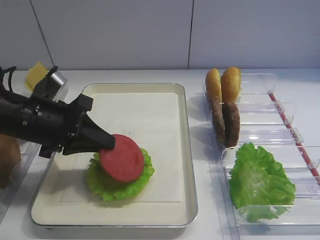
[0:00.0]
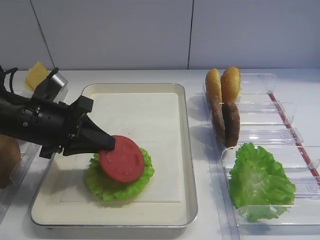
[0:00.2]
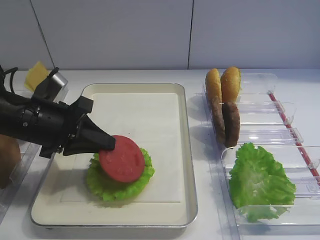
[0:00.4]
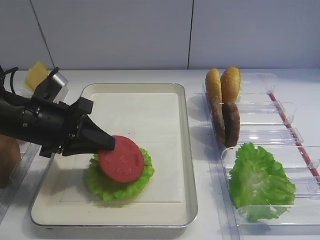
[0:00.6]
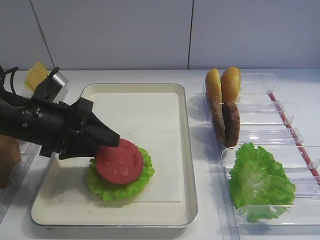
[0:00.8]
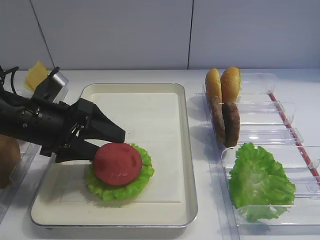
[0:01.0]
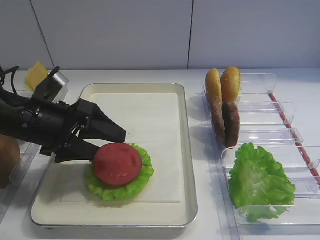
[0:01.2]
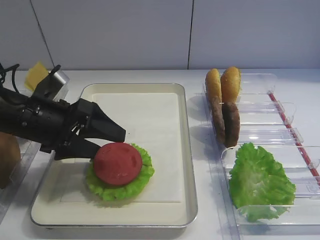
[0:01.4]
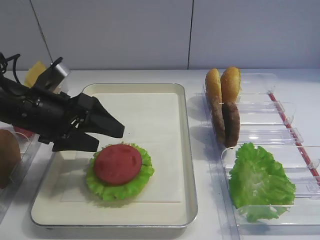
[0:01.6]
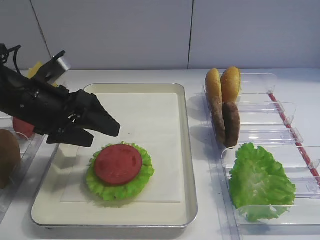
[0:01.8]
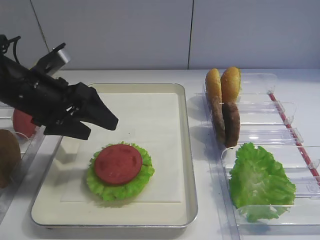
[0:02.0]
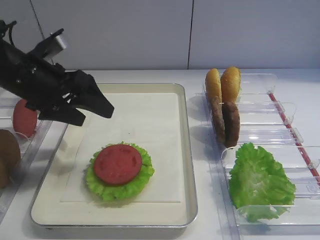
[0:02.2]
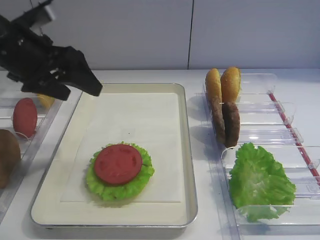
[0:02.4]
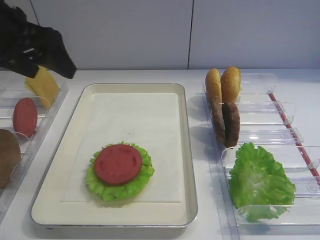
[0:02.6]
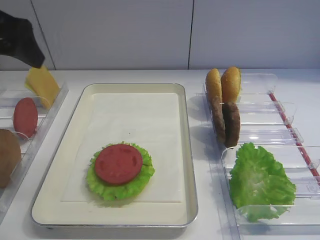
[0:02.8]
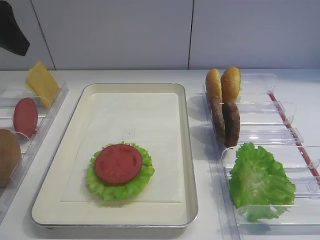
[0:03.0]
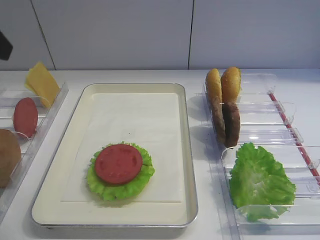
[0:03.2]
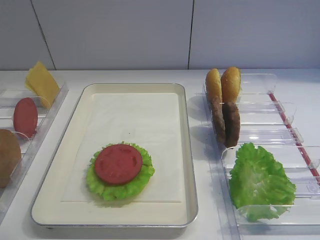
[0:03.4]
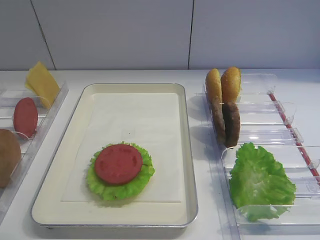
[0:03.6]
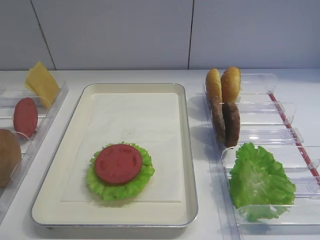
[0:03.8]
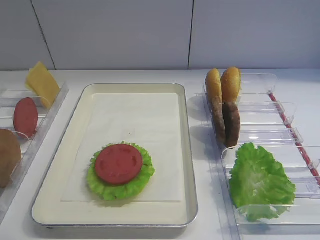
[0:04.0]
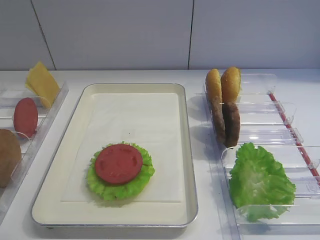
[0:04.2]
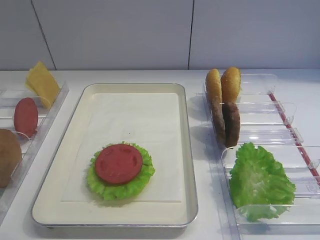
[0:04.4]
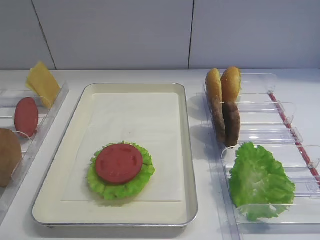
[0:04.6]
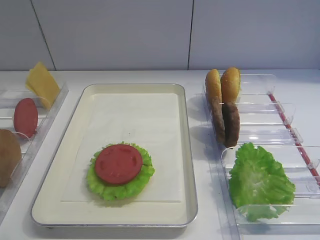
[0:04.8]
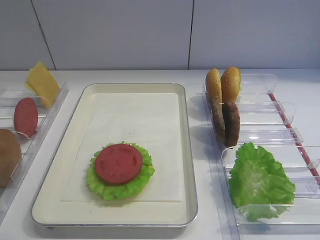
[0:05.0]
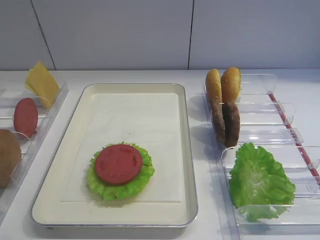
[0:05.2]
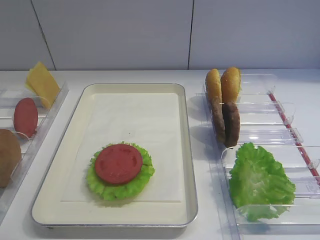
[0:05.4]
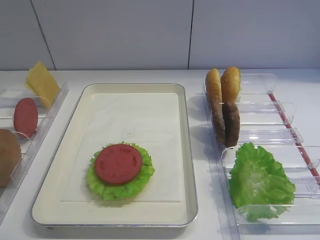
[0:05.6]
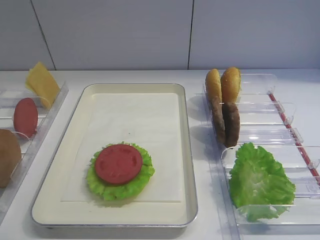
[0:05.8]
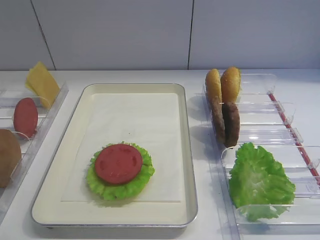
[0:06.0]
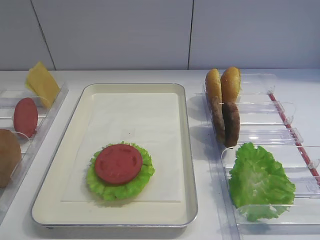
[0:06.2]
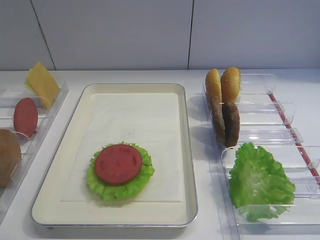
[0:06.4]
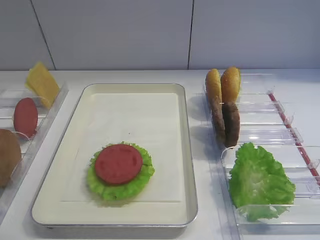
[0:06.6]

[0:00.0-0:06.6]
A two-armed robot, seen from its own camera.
0:00.0 to 0:01.6: The left gripper opens its fingers.
0:01.6 to 0:03.2: The left gripper travels upward by some 20 cm.
0:05.0 to 0:06.6: Neither gripper changes place.

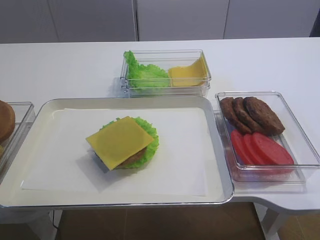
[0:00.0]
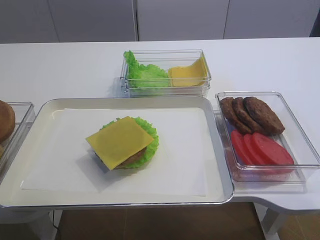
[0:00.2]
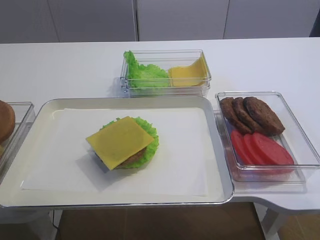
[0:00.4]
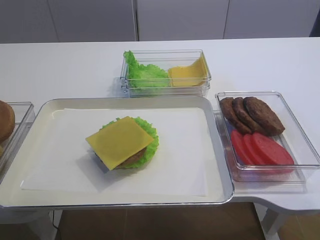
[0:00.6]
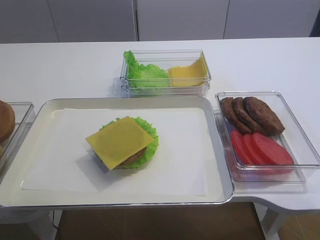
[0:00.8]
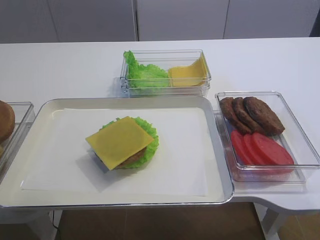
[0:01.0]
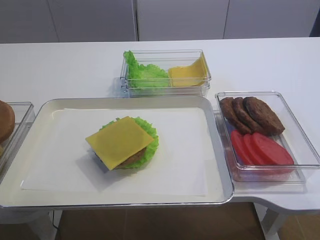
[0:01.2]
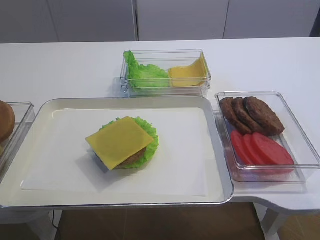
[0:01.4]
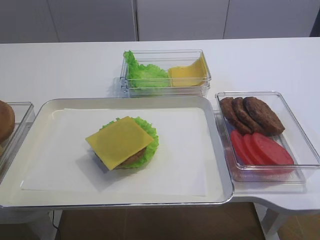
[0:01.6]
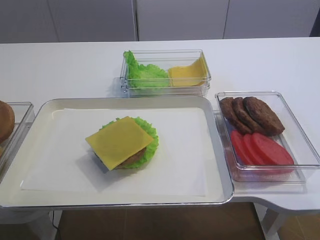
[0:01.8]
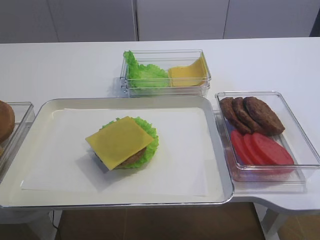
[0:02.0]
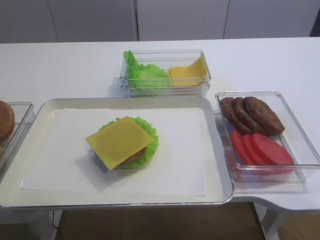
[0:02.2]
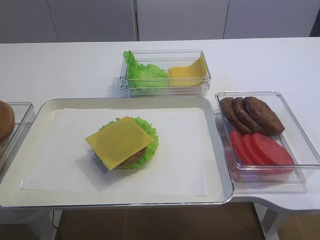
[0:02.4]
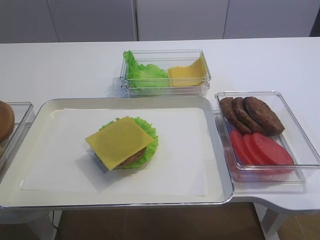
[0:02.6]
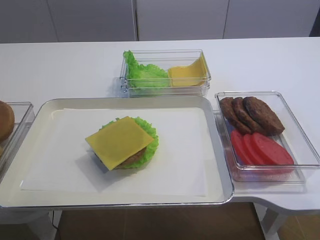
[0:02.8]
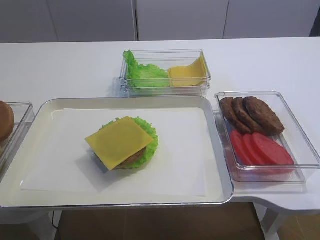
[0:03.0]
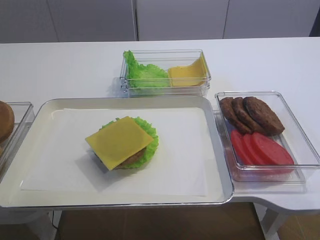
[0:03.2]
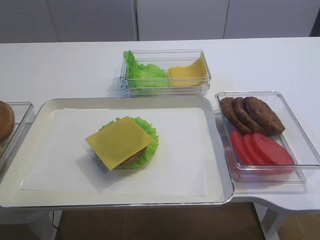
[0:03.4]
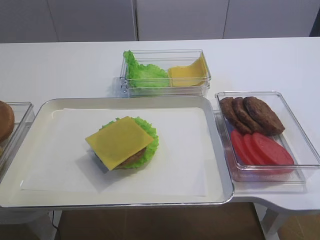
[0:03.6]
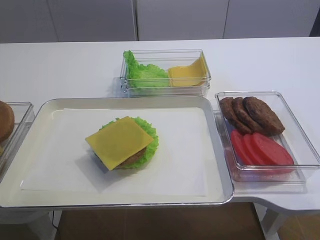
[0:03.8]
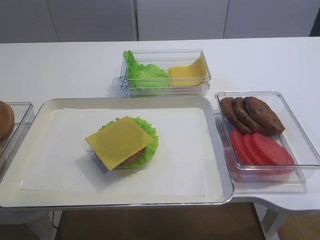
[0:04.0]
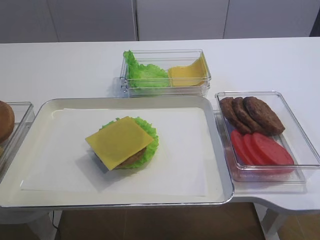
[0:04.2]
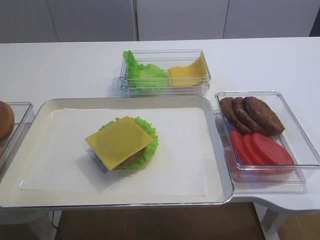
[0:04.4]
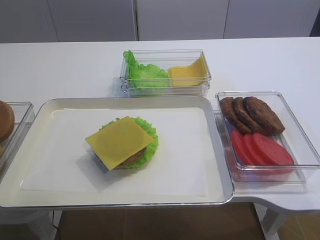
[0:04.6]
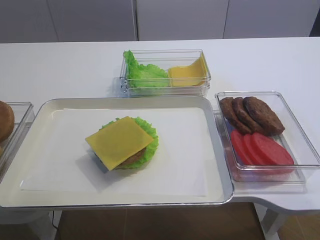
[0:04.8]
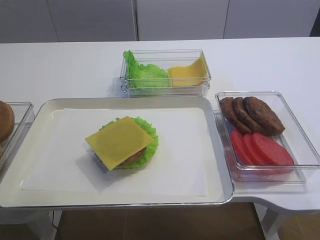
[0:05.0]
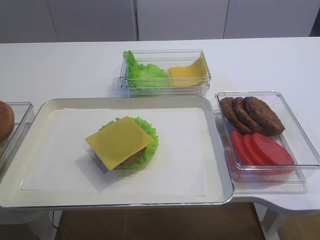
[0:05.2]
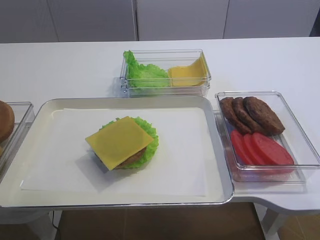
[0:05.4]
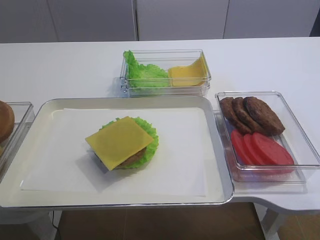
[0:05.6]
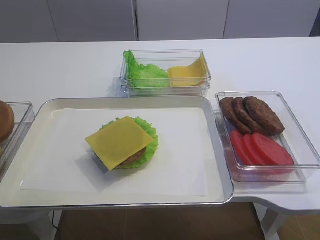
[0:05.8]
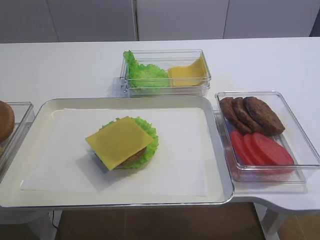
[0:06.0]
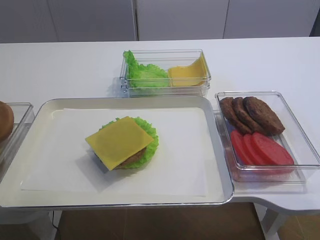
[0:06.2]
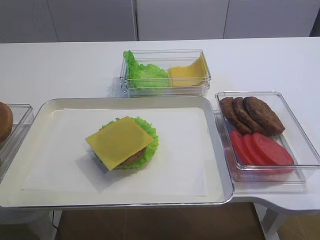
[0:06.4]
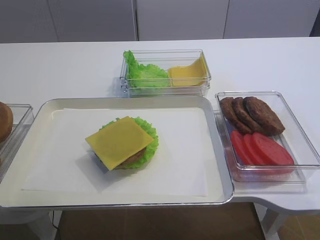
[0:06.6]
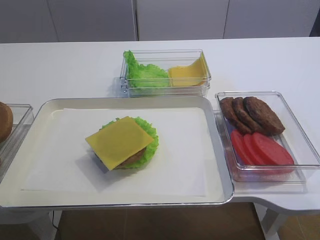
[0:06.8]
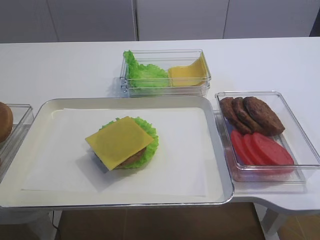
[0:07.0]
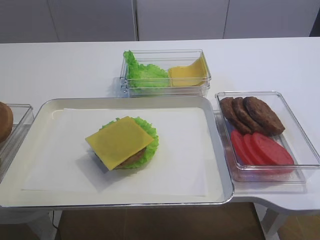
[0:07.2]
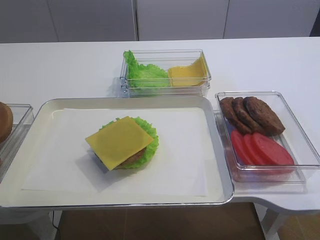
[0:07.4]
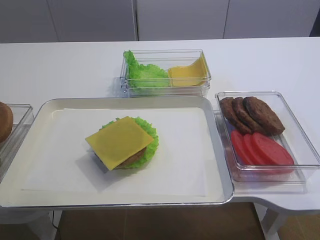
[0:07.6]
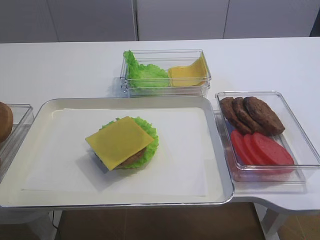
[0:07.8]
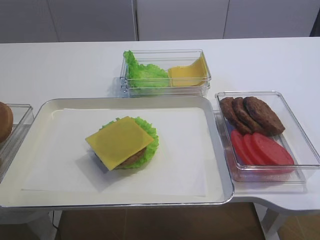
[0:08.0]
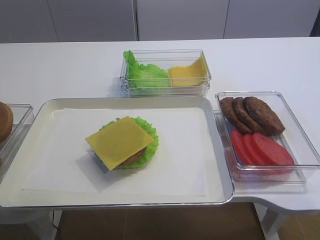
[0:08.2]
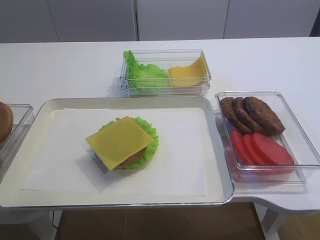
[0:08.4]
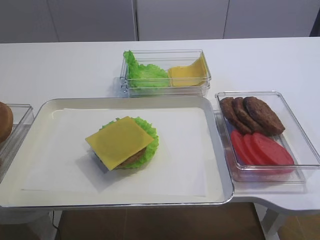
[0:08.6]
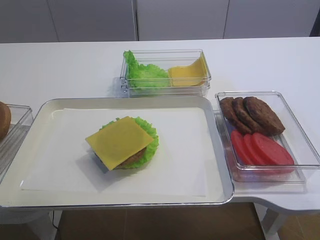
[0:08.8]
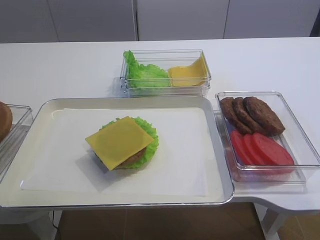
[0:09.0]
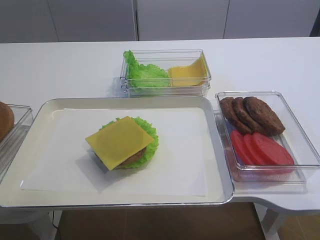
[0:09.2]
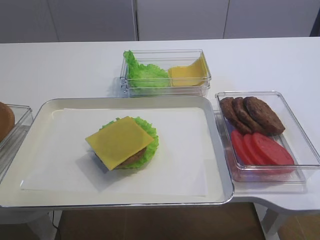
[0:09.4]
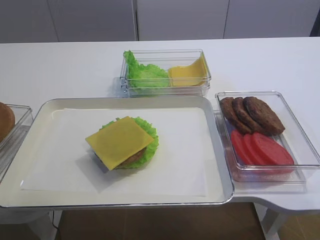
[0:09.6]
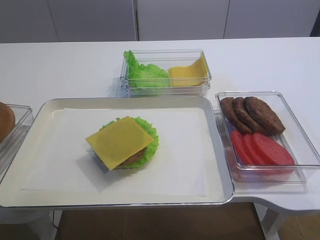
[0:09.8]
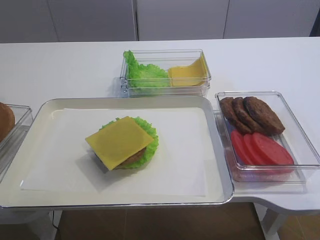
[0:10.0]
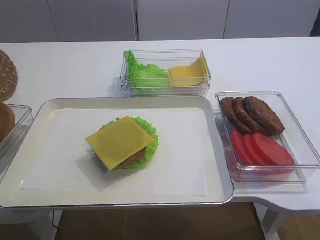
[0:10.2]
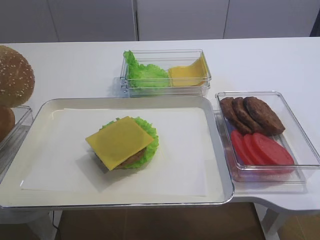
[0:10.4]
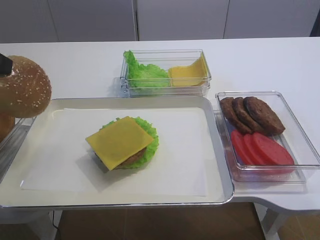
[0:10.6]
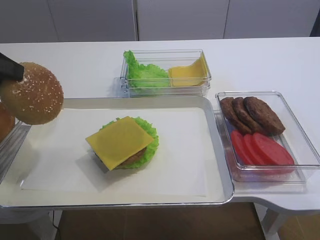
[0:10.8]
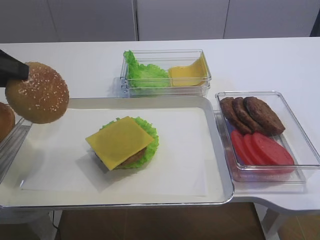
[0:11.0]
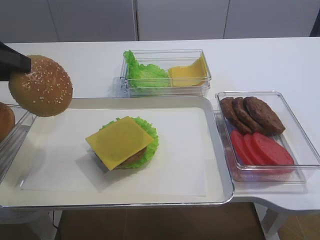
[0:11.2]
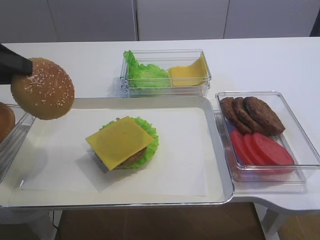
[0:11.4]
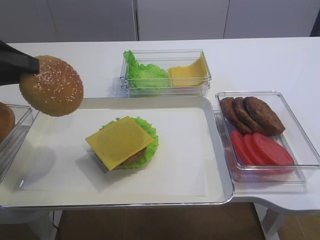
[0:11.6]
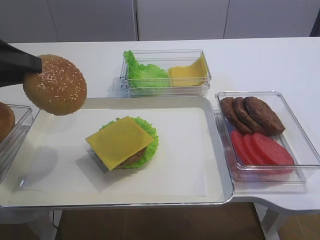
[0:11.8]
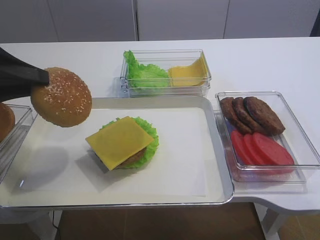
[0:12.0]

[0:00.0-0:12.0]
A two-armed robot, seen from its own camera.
0:09.0 to 0:10.4: The left gripper shifts roughly 10 cm to the right and upward.
0:10.4 to 0:12.0: The left gripper travels downward and to the right by some 5 cm.

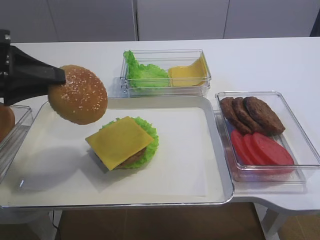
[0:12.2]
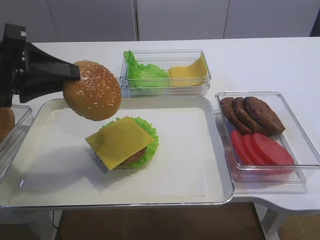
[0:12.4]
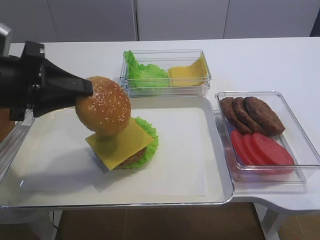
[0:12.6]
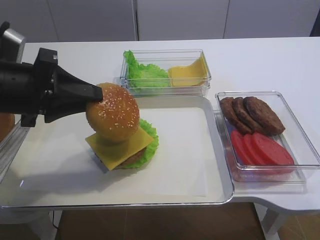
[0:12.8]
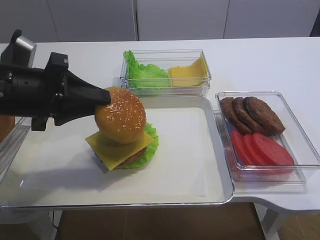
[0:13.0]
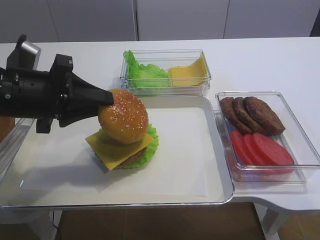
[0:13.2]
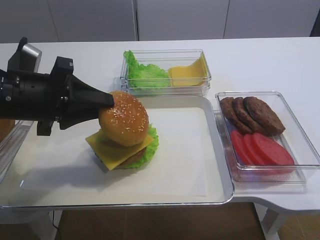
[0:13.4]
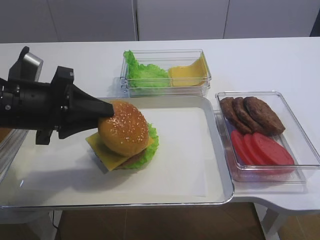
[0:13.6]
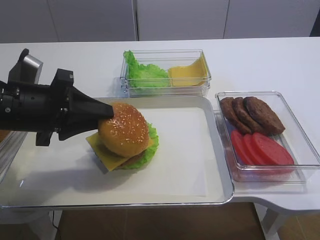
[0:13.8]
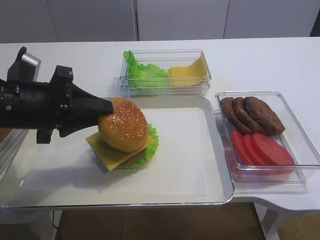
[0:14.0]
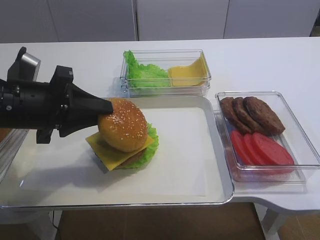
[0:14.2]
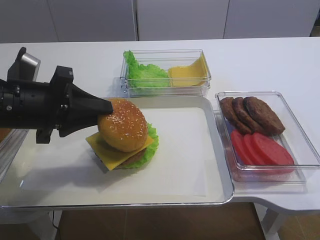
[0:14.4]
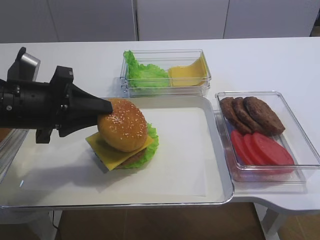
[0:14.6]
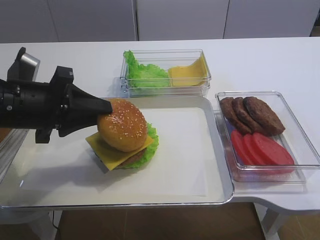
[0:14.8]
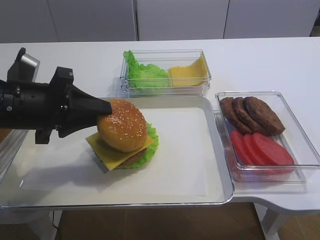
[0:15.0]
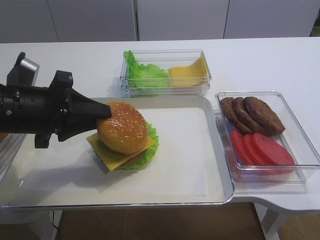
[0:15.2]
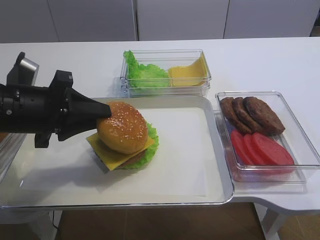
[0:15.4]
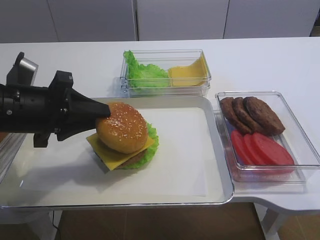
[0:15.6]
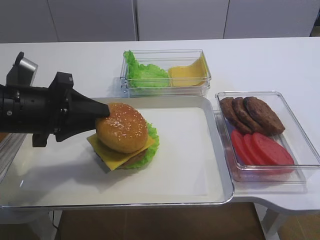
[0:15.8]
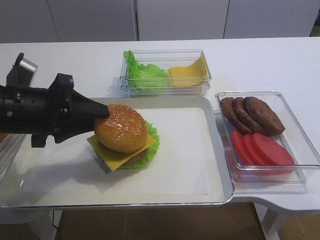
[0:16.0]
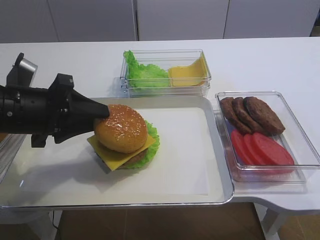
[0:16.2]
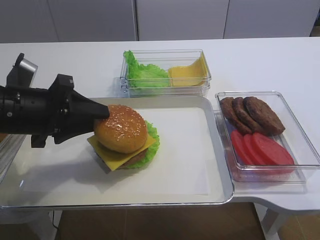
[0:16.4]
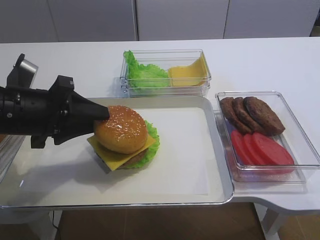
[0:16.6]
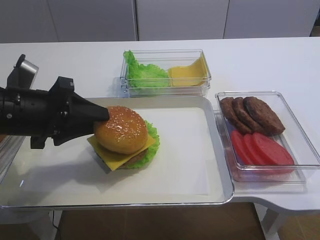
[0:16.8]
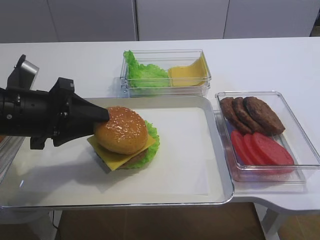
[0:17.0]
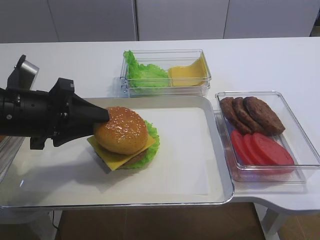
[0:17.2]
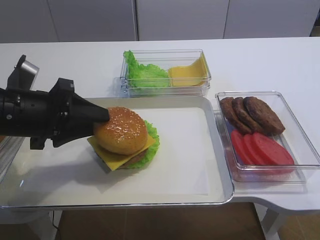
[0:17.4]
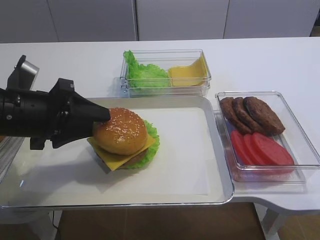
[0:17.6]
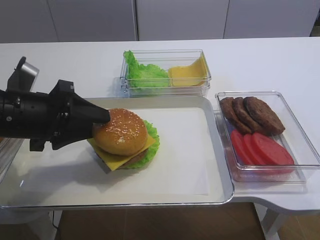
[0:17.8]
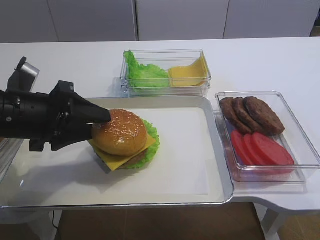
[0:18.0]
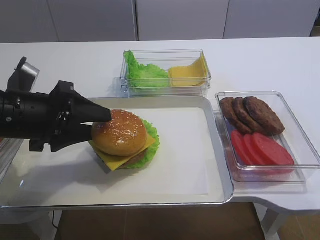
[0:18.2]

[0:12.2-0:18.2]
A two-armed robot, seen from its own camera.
0:12.2 to 0:13.8: The left gripper travels to the right and downward by roughly 10 cm.
0:13.8 to 0:15.2: The two grippers keep their place.
0:15.2 to 0:18.2: The two grippers keep their place.
